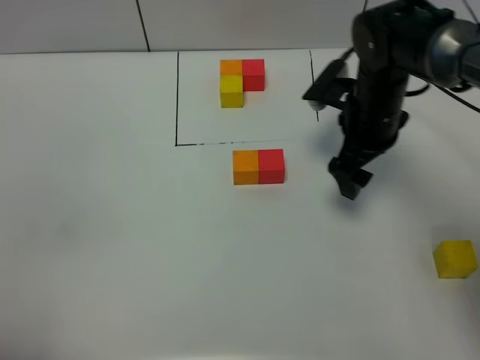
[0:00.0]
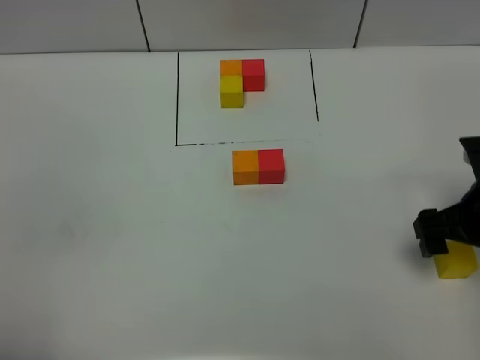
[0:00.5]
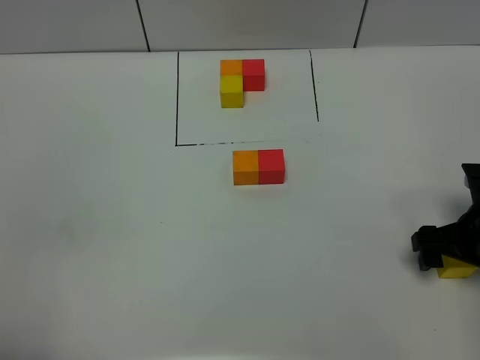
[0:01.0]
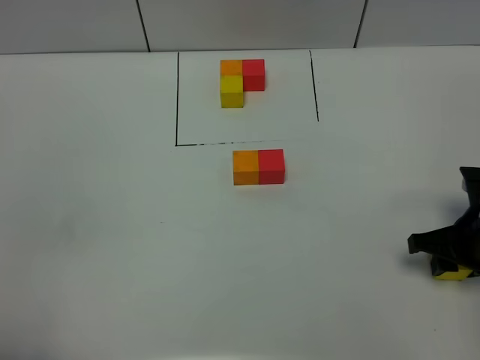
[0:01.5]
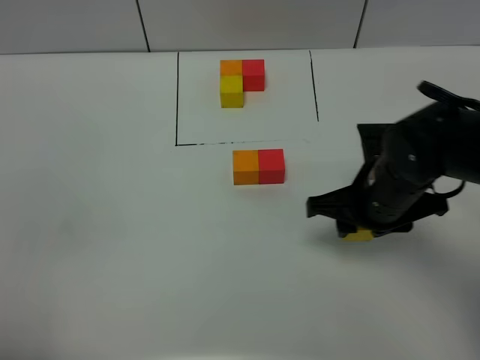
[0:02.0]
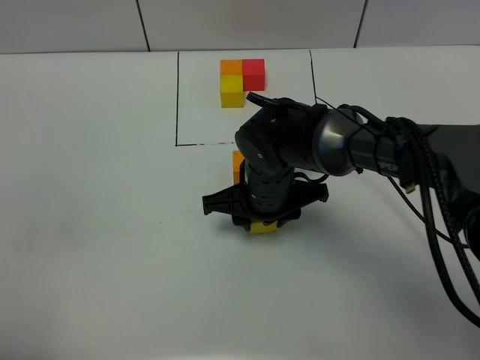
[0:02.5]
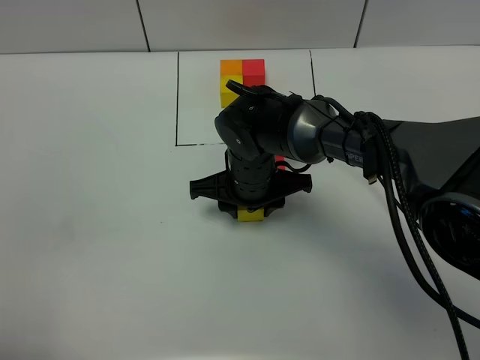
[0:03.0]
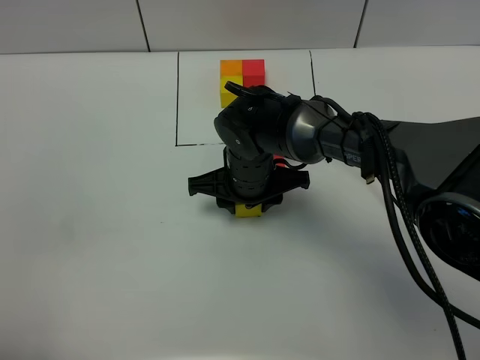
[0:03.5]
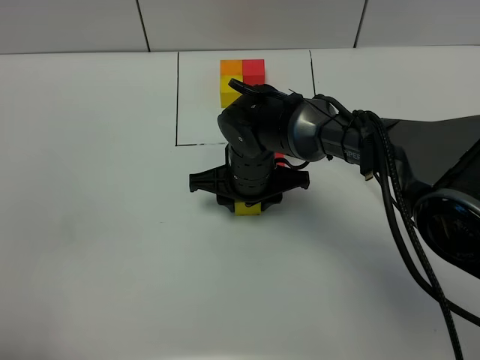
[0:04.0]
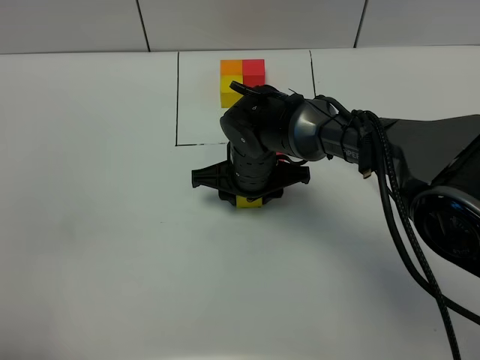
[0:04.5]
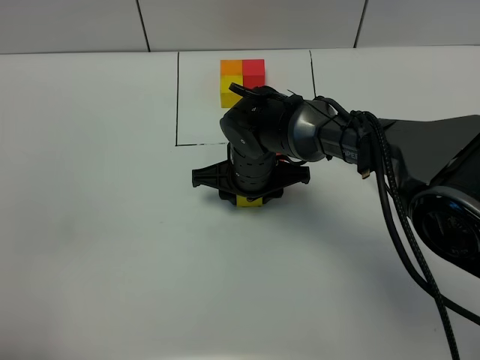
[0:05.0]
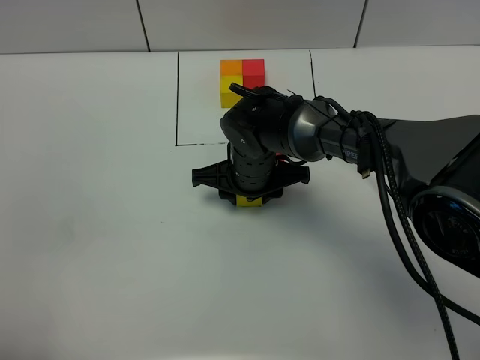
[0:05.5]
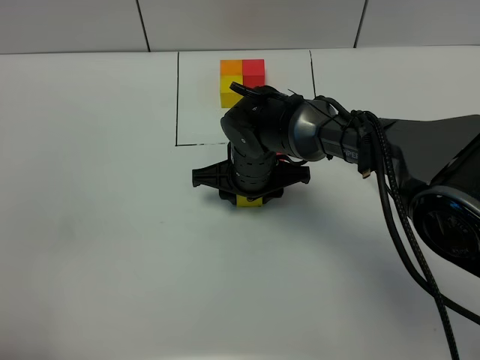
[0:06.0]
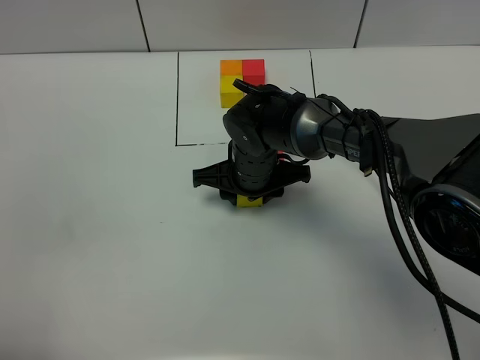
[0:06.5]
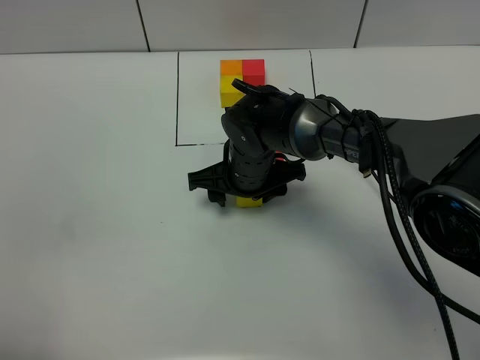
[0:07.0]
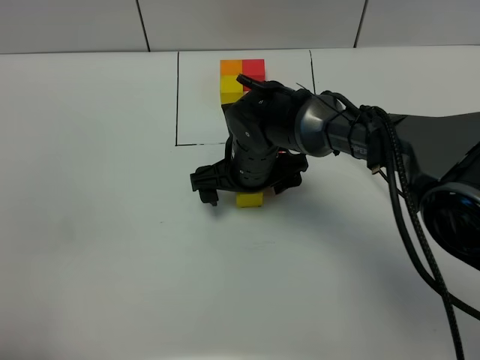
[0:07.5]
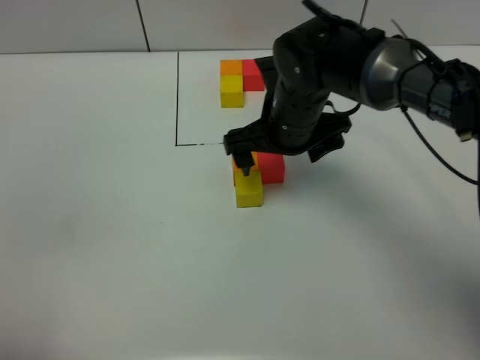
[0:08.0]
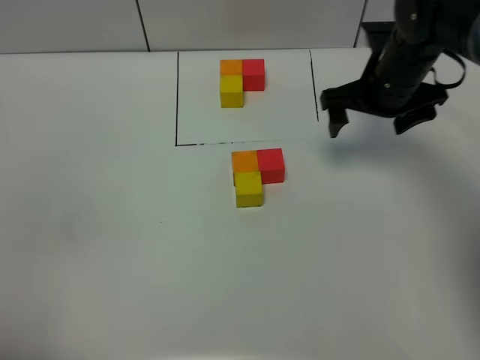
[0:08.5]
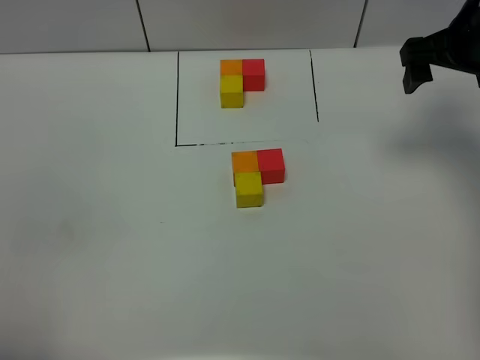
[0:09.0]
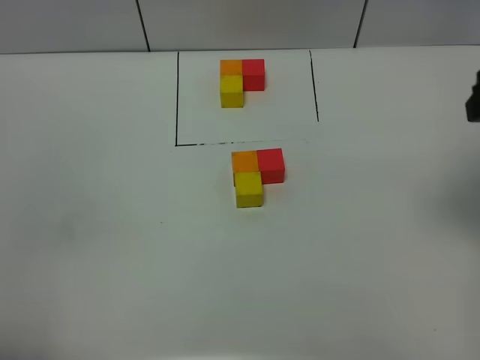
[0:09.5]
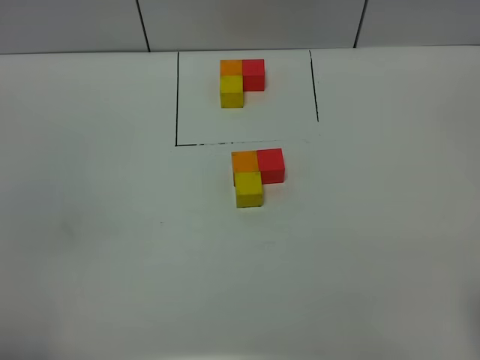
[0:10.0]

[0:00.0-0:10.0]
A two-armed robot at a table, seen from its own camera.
Task of the whole recording: According to the building block template in front, assemble the scattered blocks together.
Step, 0:00.0 to 0:07.0: Put the yellow build block on the behind of the orange build block.
0:00.0 to 0:02.0: The right gripper goes some 10 cm backward, reaches about 10 cm to the right, then returns, and closes its fingers.
0:02.0 to 0:04.0: The right gripper travels to the left, forward and downward by approximately 15 cm.
0:04.0 to 0:06.0: Neither gripper changes place.
0:06.0 to 0:08.0: The right gripper goes approximately 10 cm upward and to the right, and opens its fingers.
0:08.0 to 0:10.0: The right gripper travels backward, to the right and upward by some 40 cm.

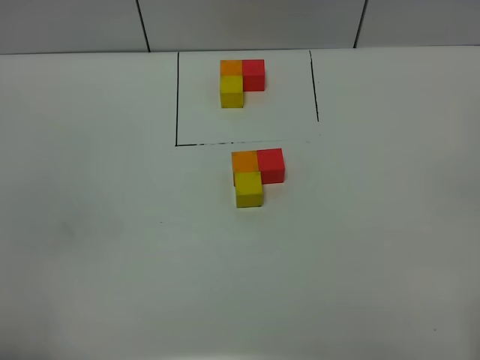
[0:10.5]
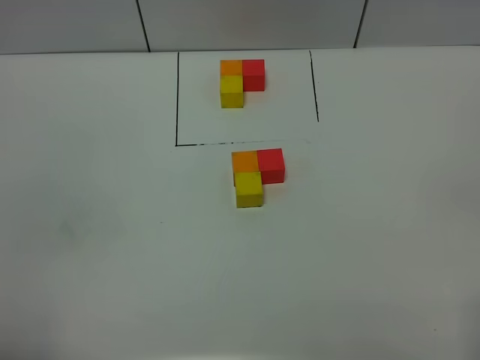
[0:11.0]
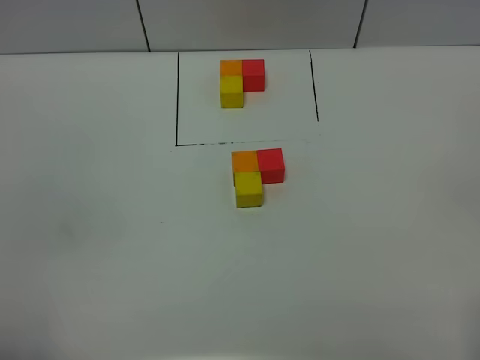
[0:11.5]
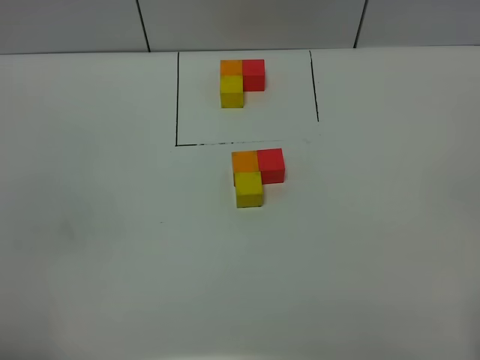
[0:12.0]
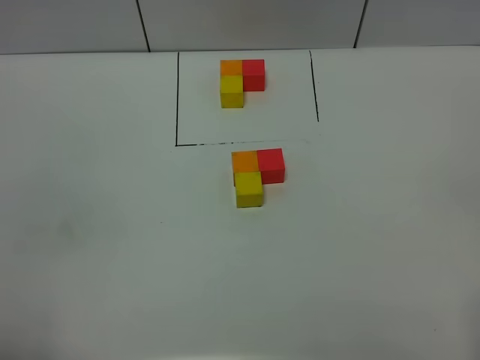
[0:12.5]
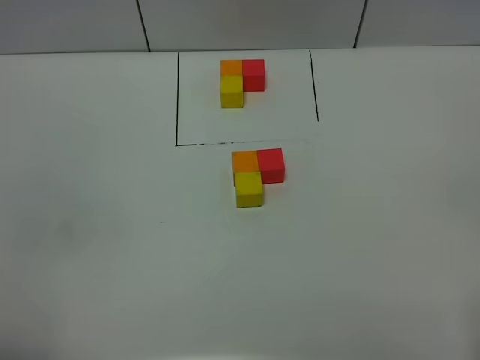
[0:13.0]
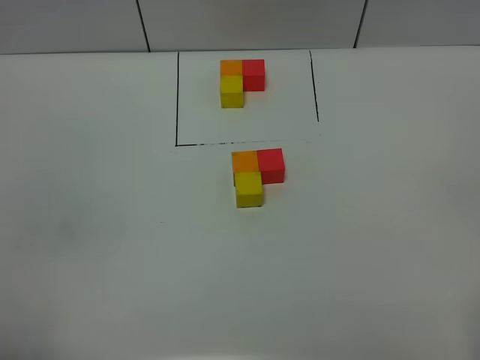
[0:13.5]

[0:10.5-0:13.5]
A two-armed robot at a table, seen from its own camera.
Task of the whole recording: According to the building block template in front, assemble the scattered blocks together.
0:12.0 to 0:13.5: Both grippers stay about where they are.
